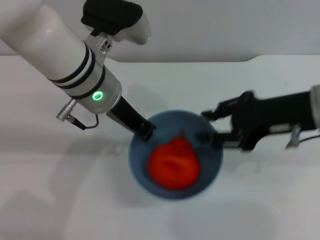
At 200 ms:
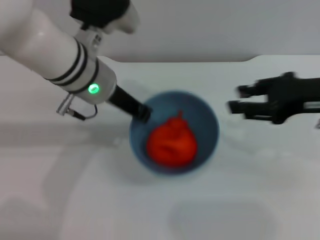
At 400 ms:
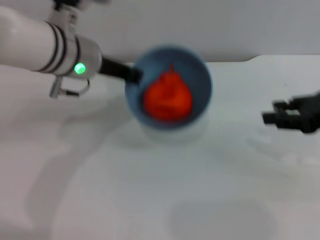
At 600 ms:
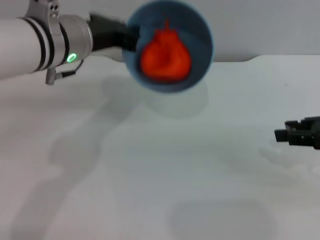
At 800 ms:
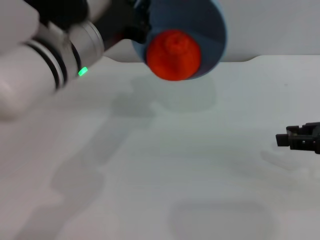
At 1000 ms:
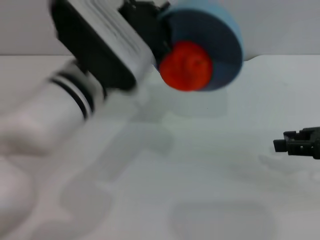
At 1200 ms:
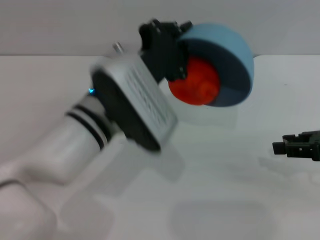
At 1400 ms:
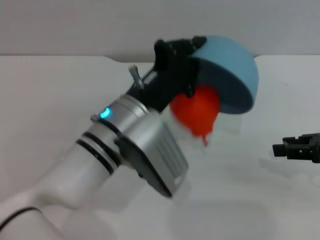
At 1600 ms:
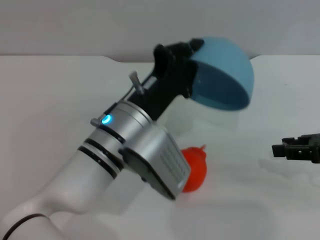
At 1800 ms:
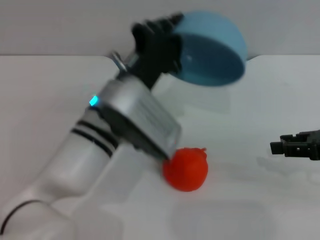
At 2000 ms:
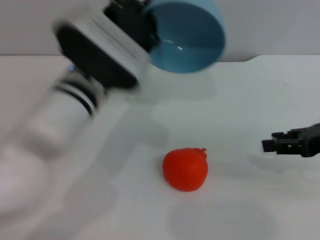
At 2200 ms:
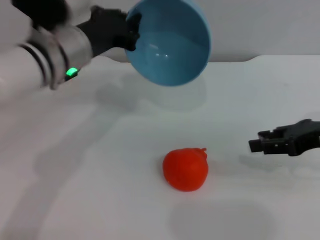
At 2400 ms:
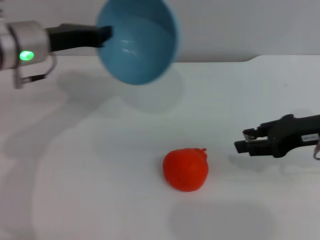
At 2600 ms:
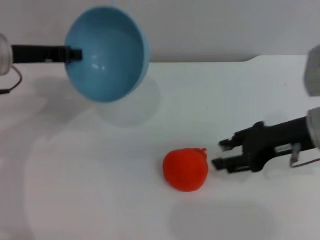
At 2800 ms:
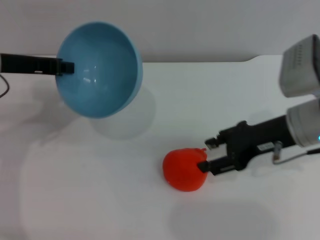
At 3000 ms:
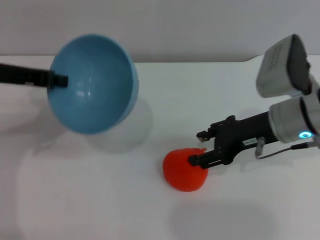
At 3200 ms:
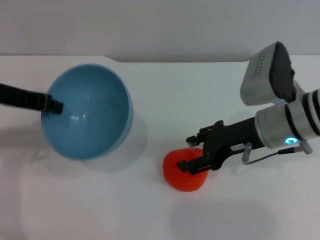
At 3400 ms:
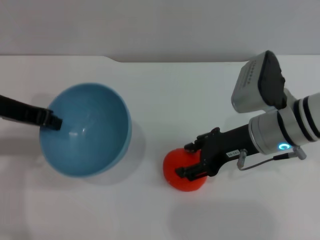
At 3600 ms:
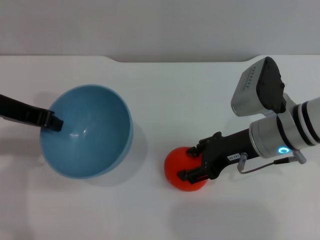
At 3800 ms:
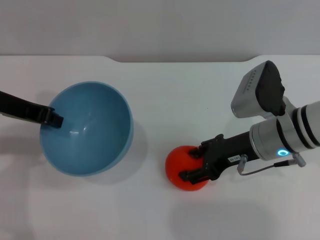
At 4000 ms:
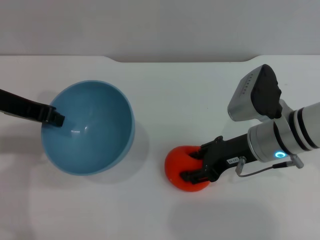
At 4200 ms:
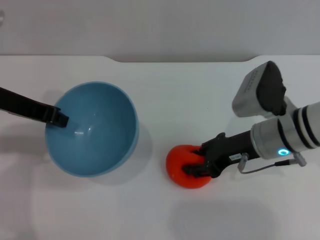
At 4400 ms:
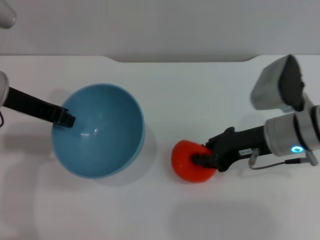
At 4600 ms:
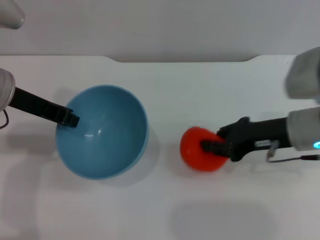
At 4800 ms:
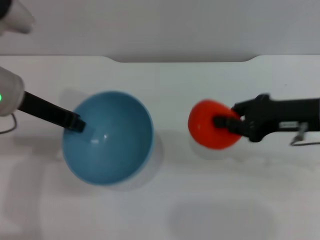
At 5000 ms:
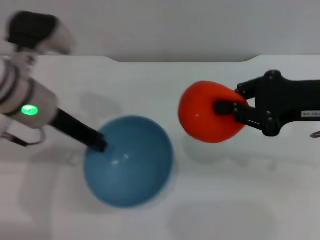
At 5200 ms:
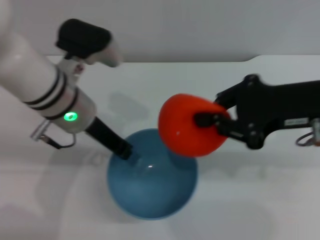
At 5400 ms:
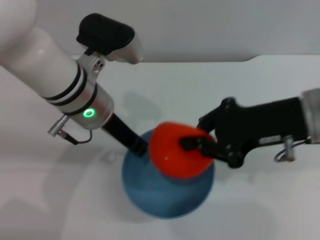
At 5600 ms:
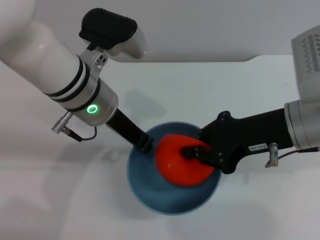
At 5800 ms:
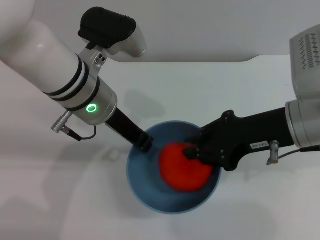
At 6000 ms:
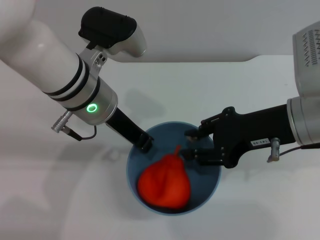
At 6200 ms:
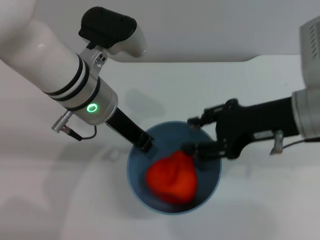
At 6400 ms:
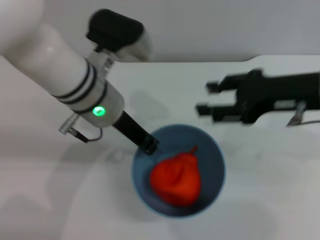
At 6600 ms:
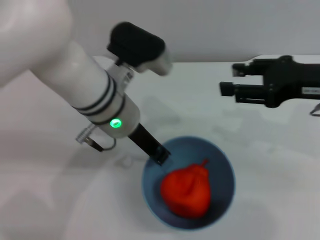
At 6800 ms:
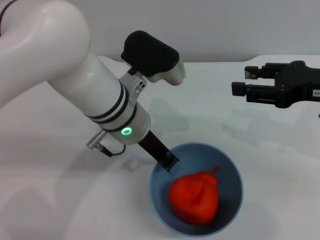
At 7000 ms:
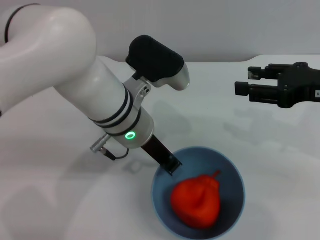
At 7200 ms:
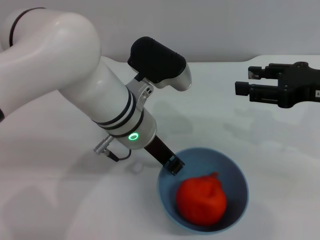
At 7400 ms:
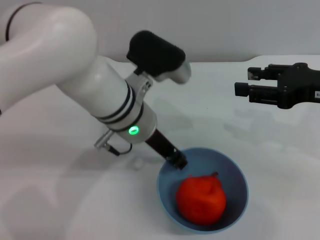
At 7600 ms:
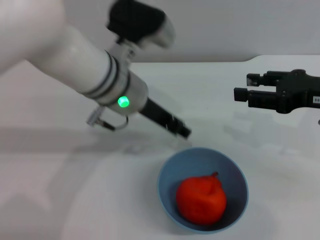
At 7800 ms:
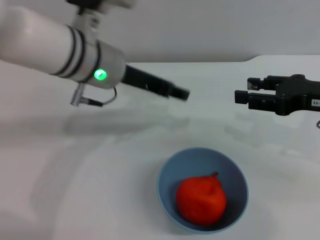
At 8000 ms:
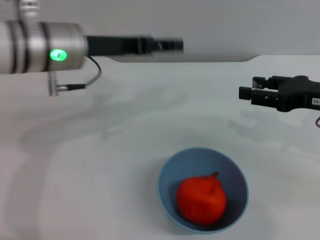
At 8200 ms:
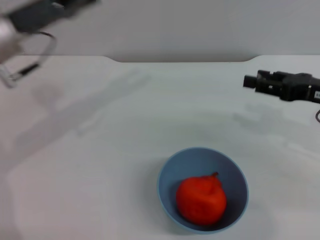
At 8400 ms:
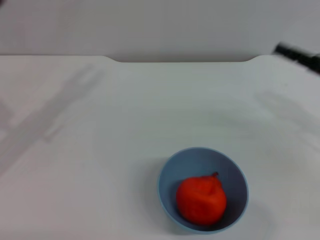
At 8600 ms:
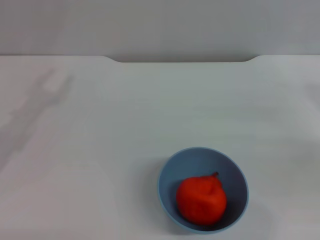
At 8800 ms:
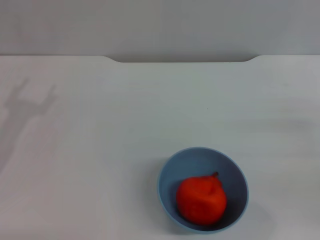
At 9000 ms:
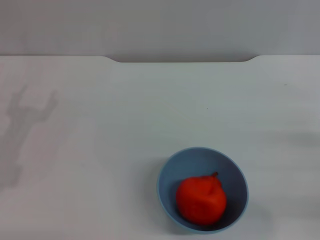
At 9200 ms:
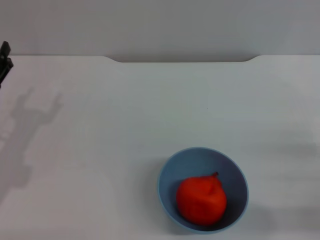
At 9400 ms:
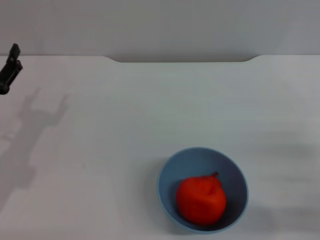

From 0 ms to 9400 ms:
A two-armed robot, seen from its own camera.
Task of the whole recording: put the orange into the blue bowl and pour it out repeatedly.
Step, from 200 ms to 1600 ms: Pour the orange out of the bowl.
Step, from 1800 ms to 4600 ms: Pick up the orange with the right gripper.
Step, from 4800 ms to 6200 ms: Place the orange into the bowl.
Step, from 6400 ms to 7400 ms: Place the bowl on the table.
From 0 ms to 1600 ms: The left gripper shifts about 10 cm downward and backward; the right gripper goes roughly 10 cm to the right.
From 1600 ms to 3200 ms: The right gripper goes roughly 15 cm to the left, and opens up, while the left gripper moves to the left and upward, about 20 cm.
From 3200 ms to 4800 ms: The right gripper heads to the right, covering roughly 5 cm, and closes.
From 4800 ms to 6200 ms: The left gripper heads to the right, covering about 10 cm. The right gripper moves about 5 cm.
From 6200 ms to 7800 ms: The right gripper is displaced to the right by approximately 10 cm, and opens up. The left gripper opens its fingers.
From 7800 ms to 9400 ms: The right gripper heads downward and backward, covering roughly 15 cm. Meanwhile the left gripper moves to the left, downward and backward, about 25 cm, and opens.
